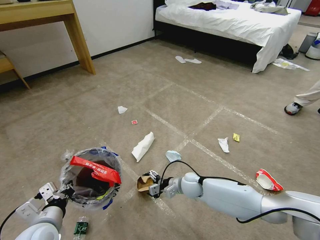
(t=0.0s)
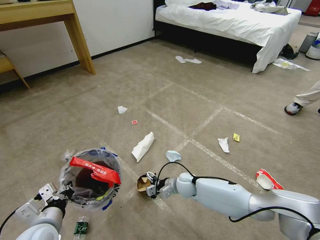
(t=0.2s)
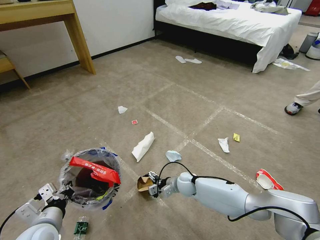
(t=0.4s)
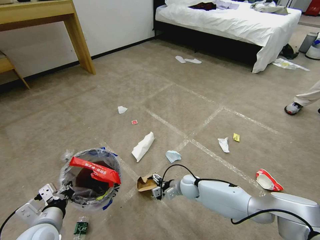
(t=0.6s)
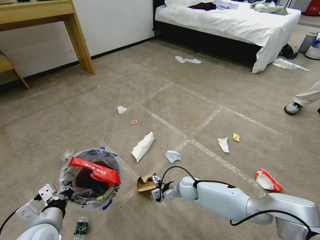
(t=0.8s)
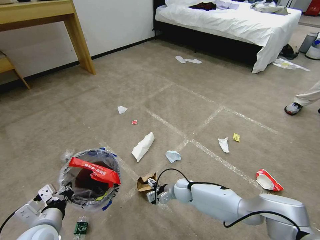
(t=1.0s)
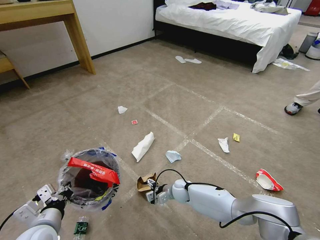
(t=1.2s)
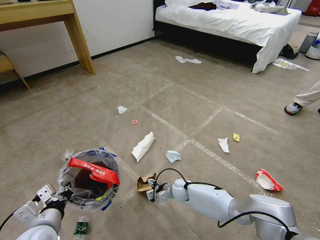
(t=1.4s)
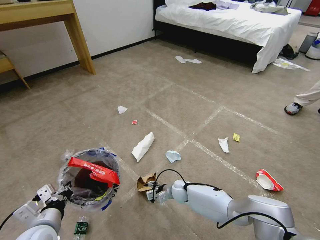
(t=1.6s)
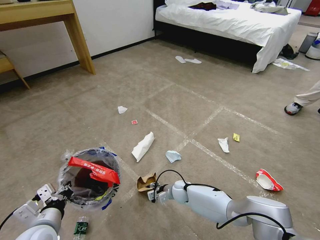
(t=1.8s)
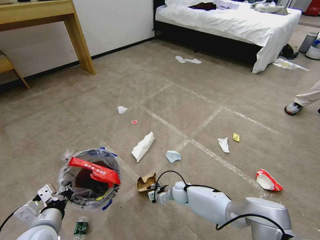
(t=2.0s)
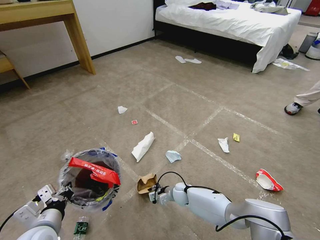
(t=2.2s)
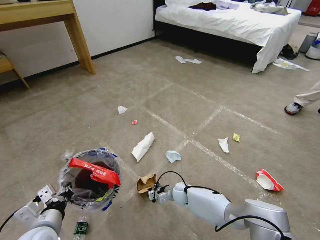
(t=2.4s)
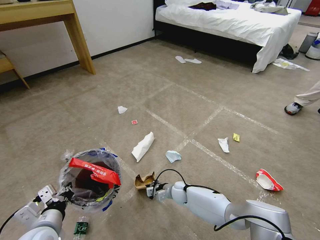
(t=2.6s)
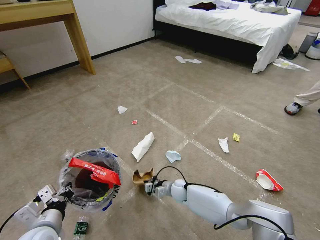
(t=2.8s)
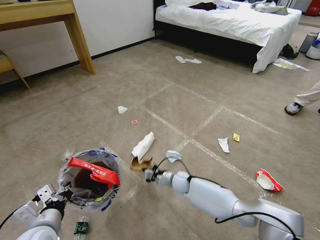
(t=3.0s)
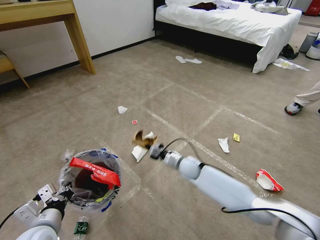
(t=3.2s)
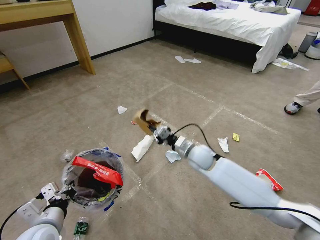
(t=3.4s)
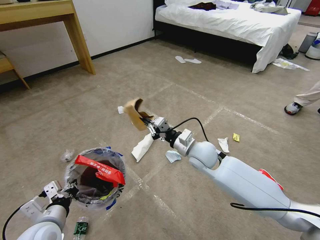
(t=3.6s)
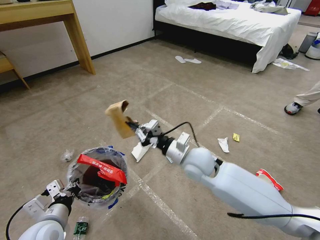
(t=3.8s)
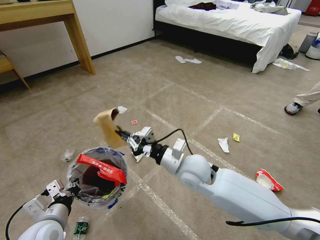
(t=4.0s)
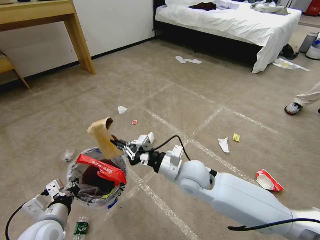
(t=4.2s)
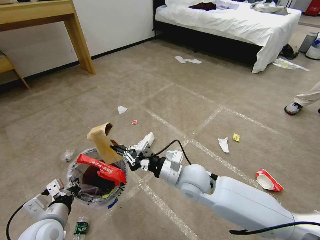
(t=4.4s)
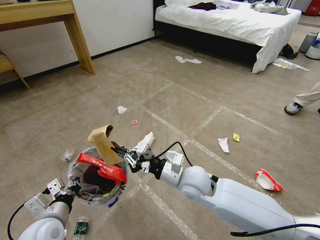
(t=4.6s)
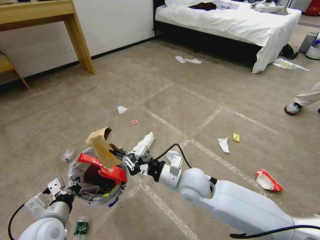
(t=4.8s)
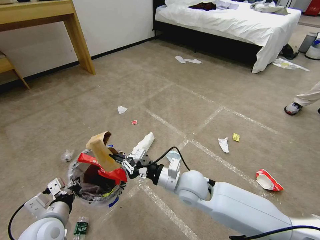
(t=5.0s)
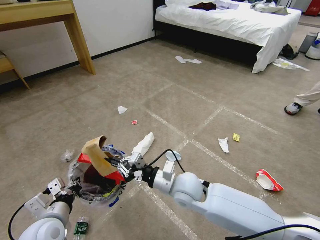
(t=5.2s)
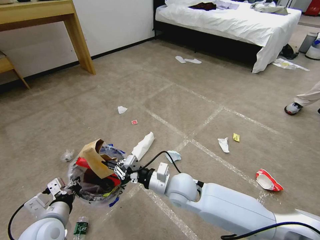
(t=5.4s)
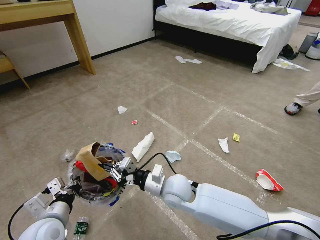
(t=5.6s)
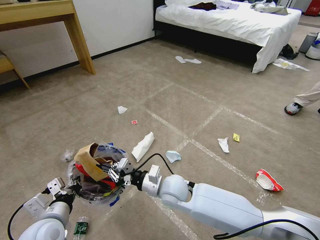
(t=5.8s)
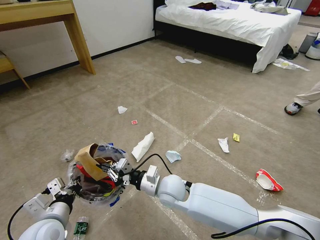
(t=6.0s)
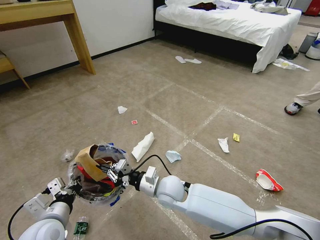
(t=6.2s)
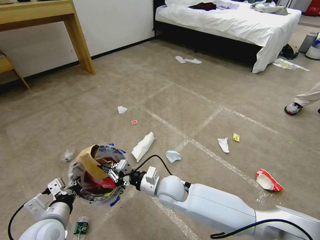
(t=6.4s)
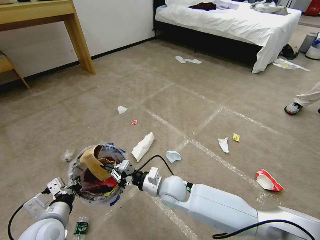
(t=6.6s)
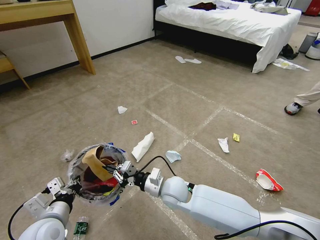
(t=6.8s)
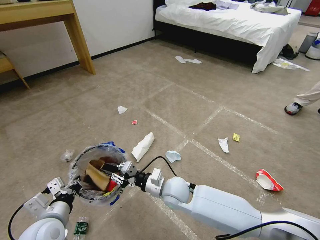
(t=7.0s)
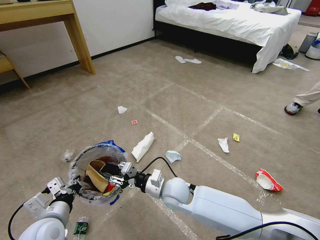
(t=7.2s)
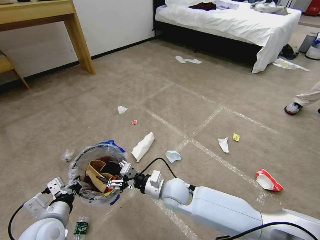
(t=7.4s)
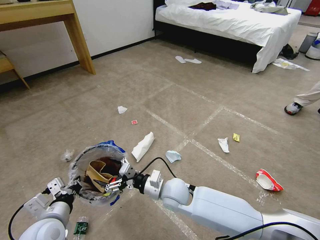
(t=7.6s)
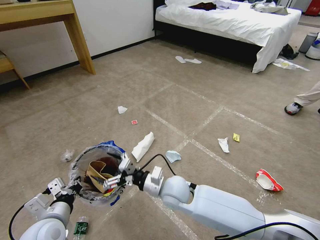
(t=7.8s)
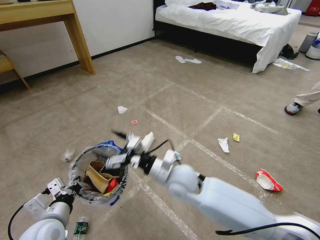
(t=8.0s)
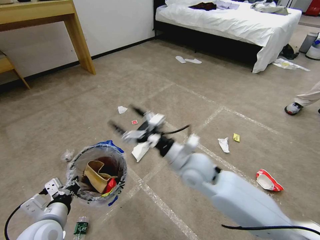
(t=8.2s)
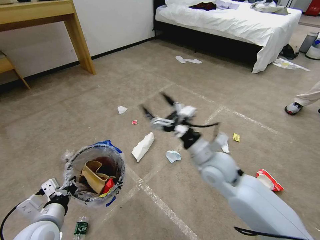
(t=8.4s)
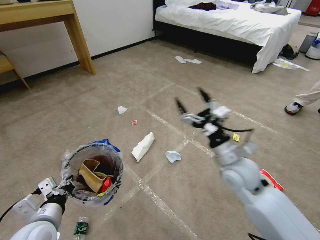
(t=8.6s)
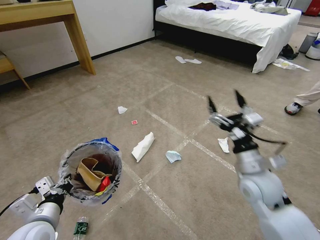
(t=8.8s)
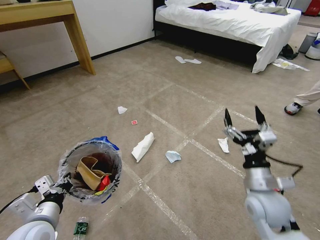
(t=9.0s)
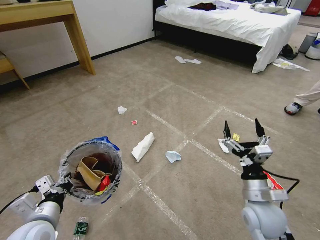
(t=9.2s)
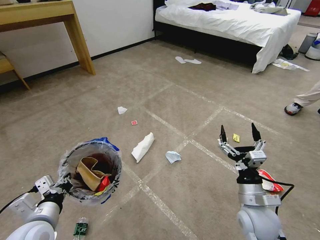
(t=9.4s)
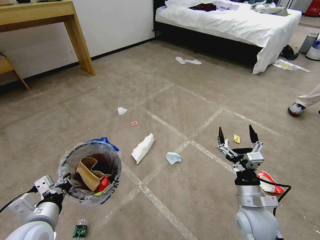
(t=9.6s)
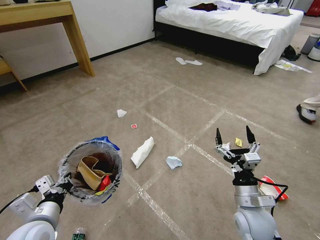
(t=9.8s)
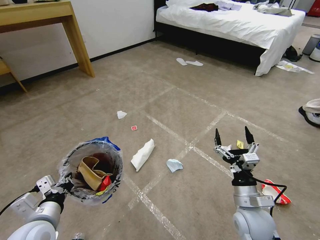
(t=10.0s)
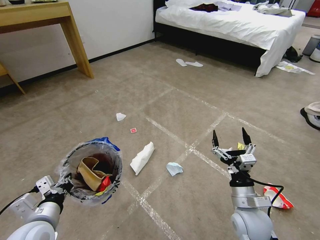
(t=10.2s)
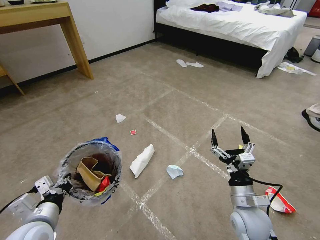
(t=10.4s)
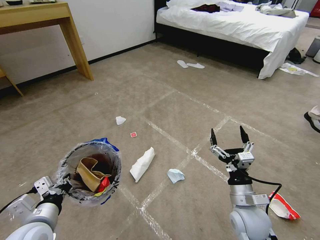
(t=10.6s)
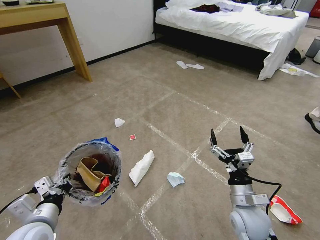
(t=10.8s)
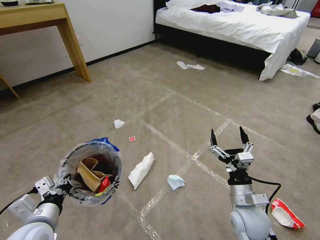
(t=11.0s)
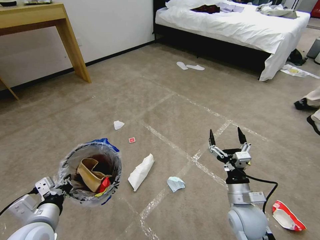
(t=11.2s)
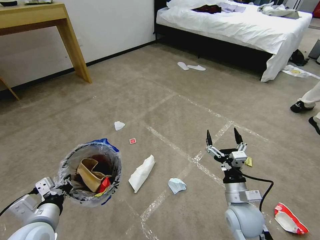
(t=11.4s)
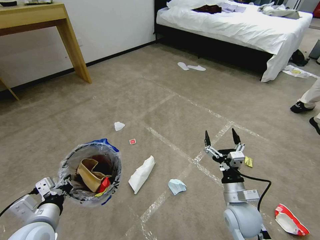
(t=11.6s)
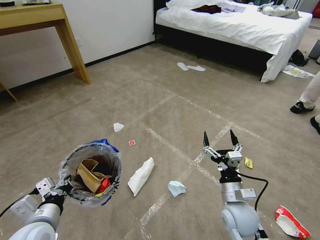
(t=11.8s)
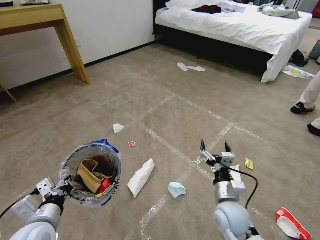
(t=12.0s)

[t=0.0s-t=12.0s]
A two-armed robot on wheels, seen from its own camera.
Task of the whole recording: Pick up the trash bin and place the garbage on the floor into it.
t=0.0s to t=1.6s: The right gripper is displaced downward by some 10 cm, and closes its fingers.
t=1.6s to t=3.0s: The right gripper shifts some 5 cm upward, and closes its fingers.
t=3.0s to t=4.4s: The right gripper shifts some 25 cm upward and backward.
t=4.4s to t=6.0s: The right gripper is displaced downward and to the left by roughly 10 cm.
t=6.0s to t=7.6s: The right gripper opens.
t=7.6s to t=9.0s: The right gripper heads to the right, covering approximately 25 cm.
t=9.0s to t=10.4s: The right gripper shifts about 5 cm downward.
t=10.4s to t=12.0s: The right gripper shifts by roughly 5 cm.

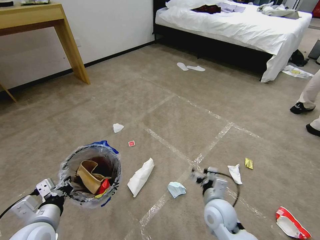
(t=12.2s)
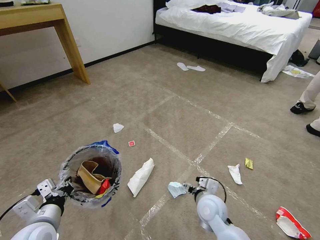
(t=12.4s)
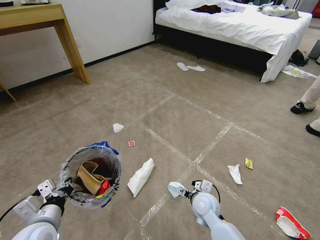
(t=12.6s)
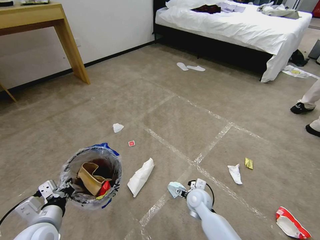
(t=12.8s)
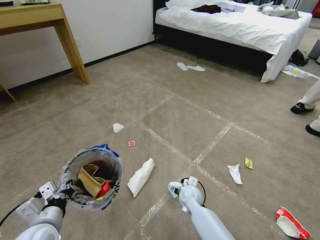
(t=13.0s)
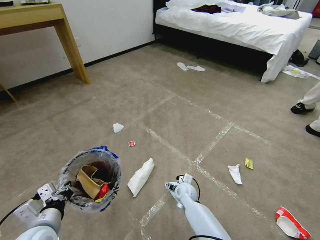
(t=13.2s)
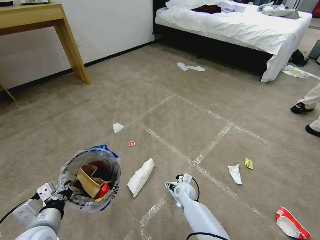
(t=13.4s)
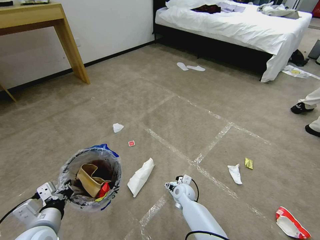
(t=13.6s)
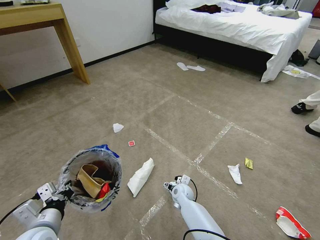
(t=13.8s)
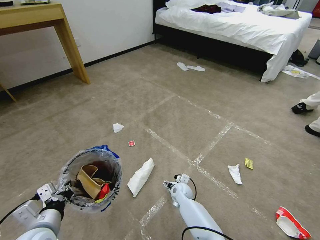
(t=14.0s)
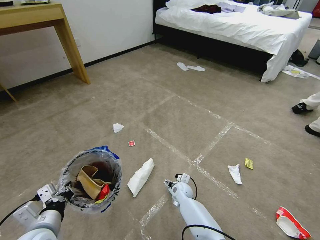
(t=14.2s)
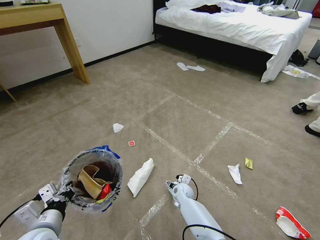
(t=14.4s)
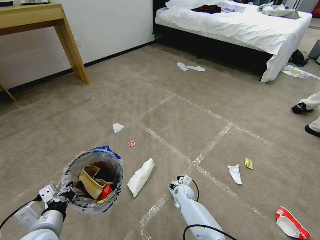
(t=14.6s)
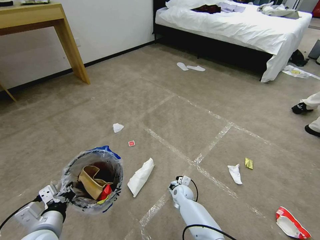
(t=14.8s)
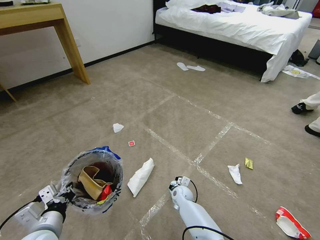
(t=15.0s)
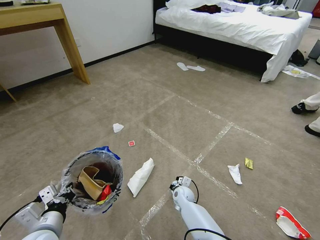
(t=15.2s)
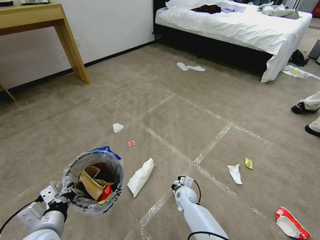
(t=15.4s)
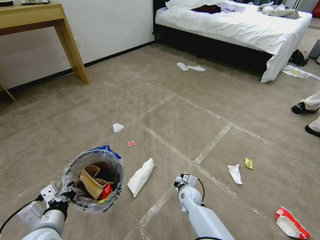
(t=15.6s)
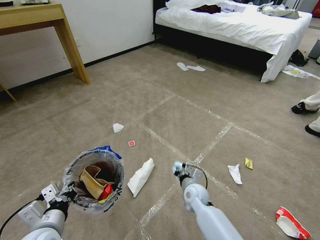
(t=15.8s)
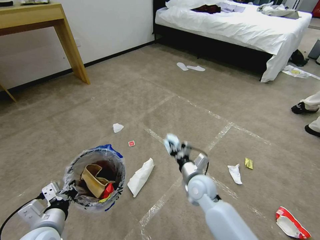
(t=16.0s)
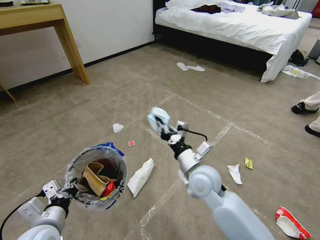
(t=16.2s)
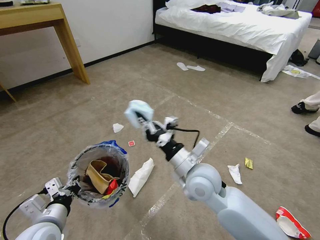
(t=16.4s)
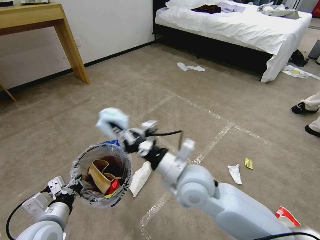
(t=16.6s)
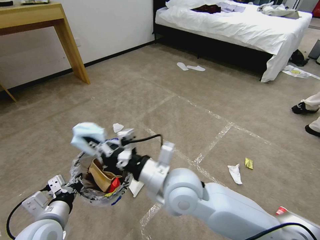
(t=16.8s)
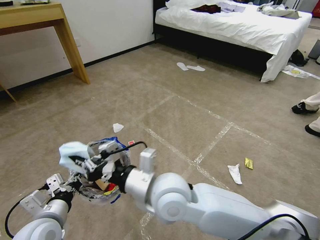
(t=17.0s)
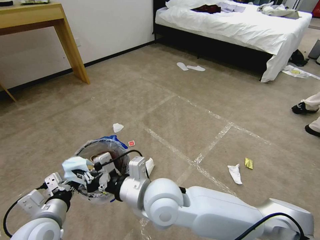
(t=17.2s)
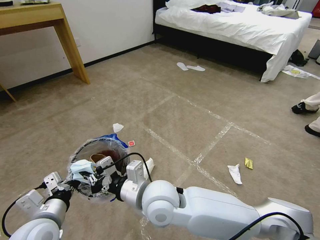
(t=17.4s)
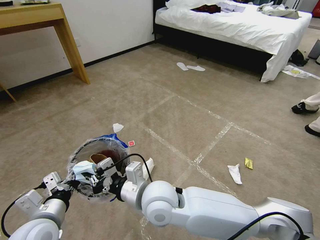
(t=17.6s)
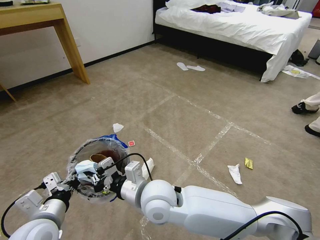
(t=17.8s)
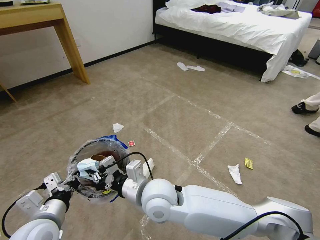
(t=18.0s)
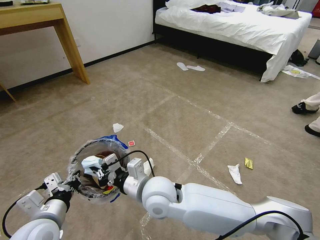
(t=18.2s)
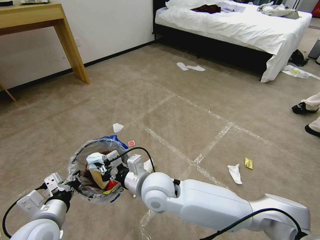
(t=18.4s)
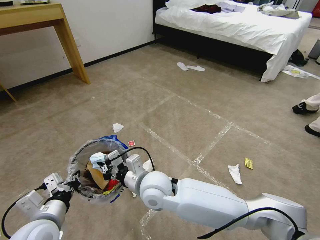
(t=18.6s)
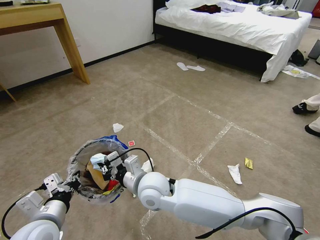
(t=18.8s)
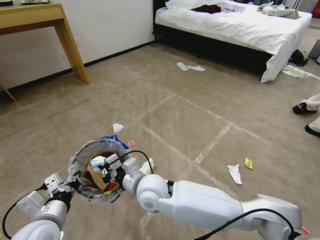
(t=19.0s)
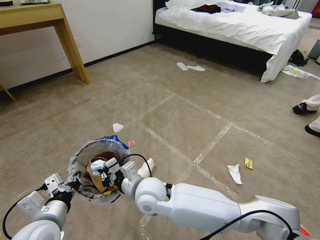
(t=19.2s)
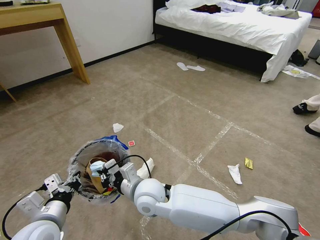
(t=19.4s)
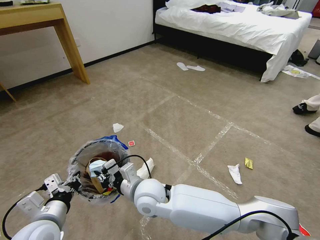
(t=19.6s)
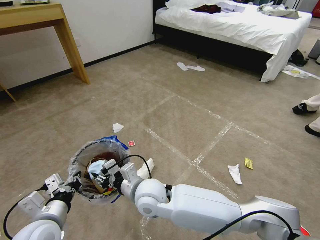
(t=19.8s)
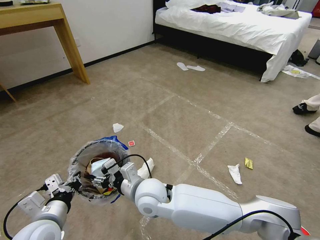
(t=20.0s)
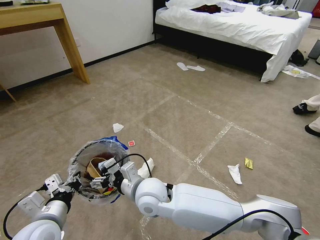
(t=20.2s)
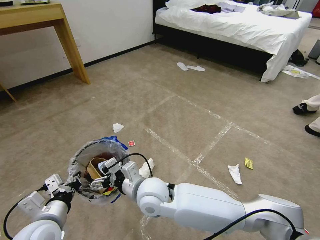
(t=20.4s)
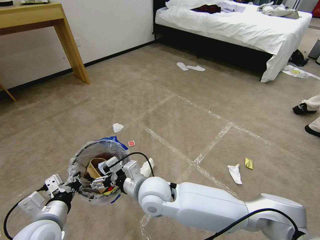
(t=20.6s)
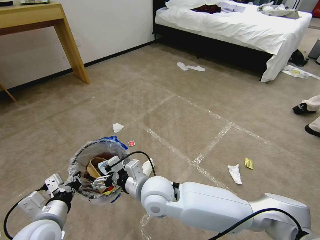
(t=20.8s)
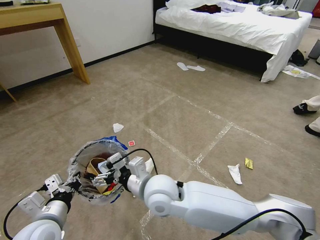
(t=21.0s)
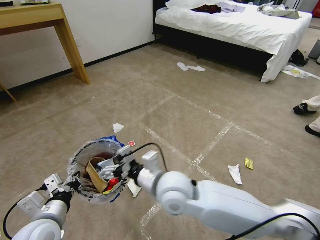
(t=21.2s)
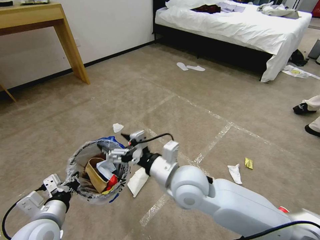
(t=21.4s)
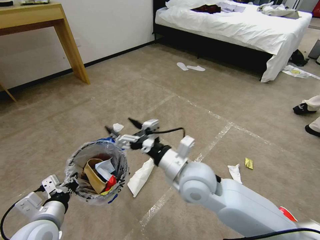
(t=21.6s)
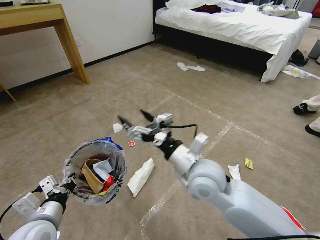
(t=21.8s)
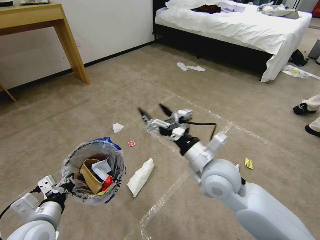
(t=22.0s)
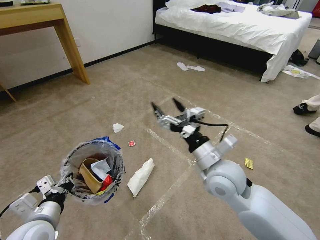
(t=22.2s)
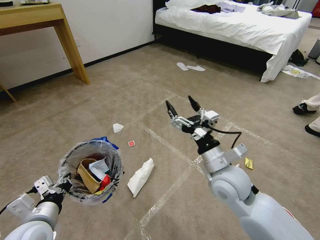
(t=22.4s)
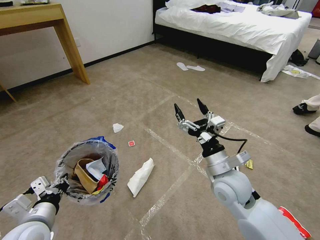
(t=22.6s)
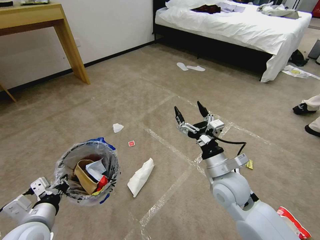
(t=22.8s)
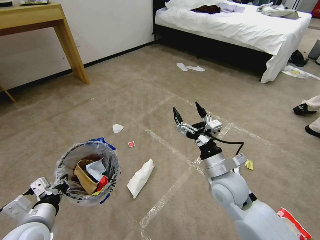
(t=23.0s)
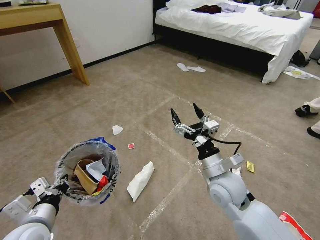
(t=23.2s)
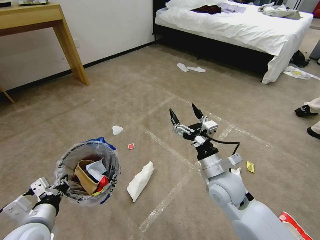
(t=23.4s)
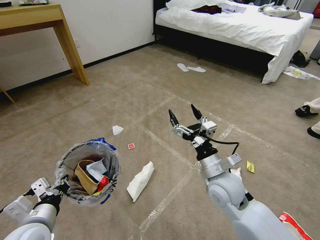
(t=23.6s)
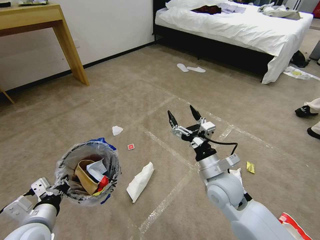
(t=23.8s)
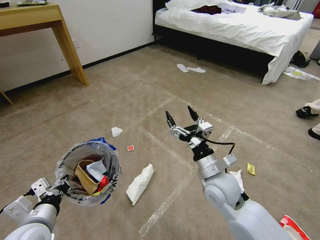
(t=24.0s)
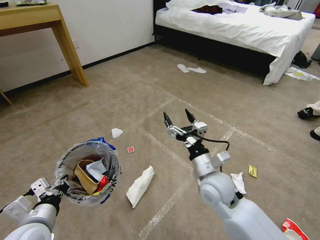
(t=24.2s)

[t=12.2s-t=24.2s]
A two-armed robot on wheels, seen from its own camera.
Task of the whole recording: Pick up the trash bin and place the garbage on the floor into it.
t=12.2s to t=13.8s: The right gripper shifts roughly 20 cm downward, forward and to the left.
t=13.8s to t=15.2s: The right gripper closes up.
t=15.2s to t=16.6s: The right gripper heads upward, covering roughly 35 cm.
t=16.6s to t=18.2s: The right gripper goes about 10 cm to the left.
t=18.2s to t=19.8s: The right gripper opens up.
t=19.8s to t=21.2s: The right gripper travels upward and to the right by some 10 cm, and opens up.
t=21.2s to t=22.6s: The right gripper heads to the right, covering roughly 20 cm.
t=22.6s to t=24.2s: The grippers move only a little.
